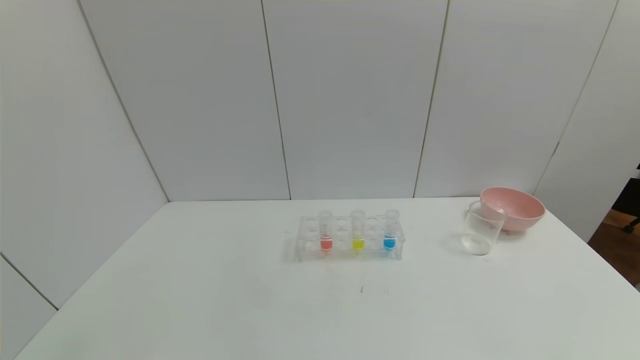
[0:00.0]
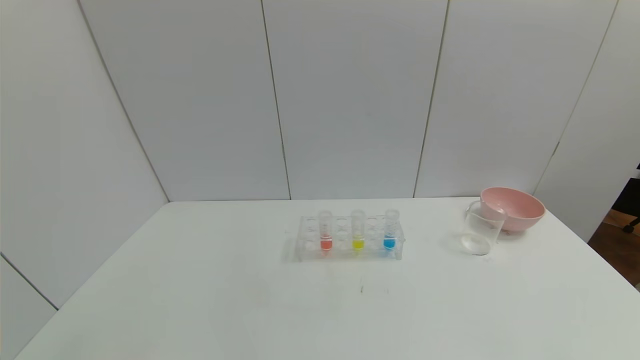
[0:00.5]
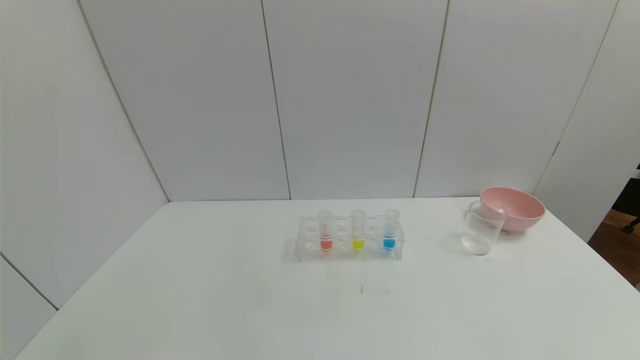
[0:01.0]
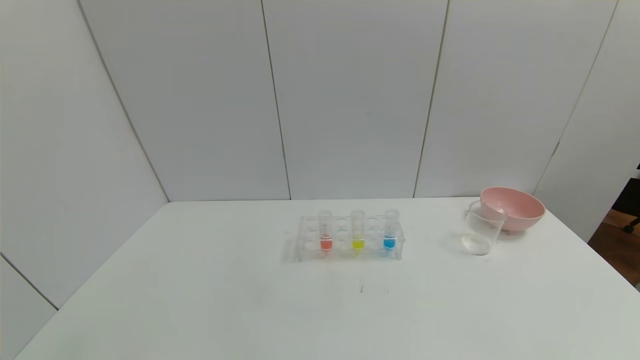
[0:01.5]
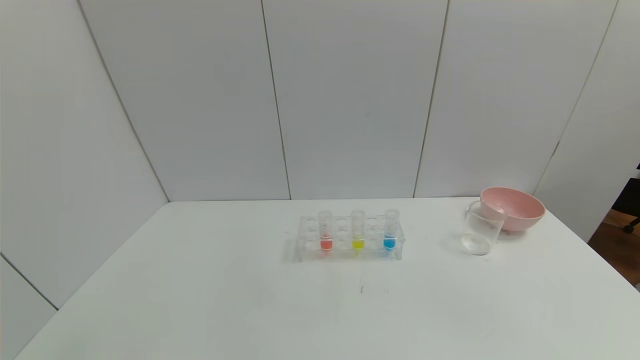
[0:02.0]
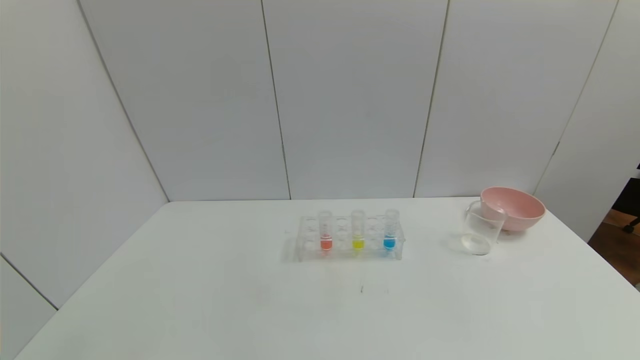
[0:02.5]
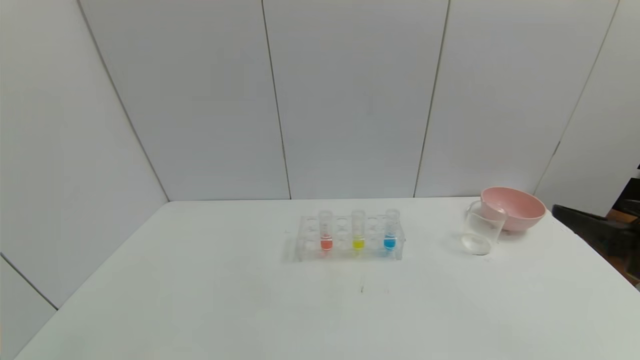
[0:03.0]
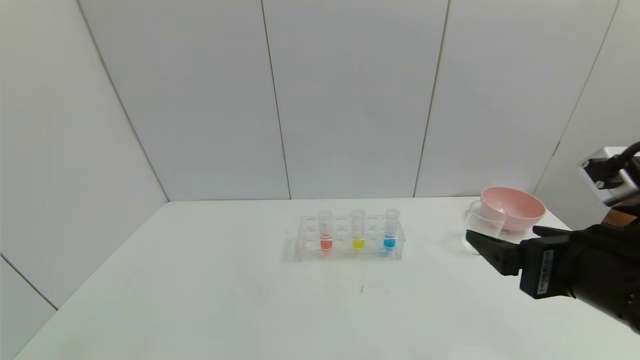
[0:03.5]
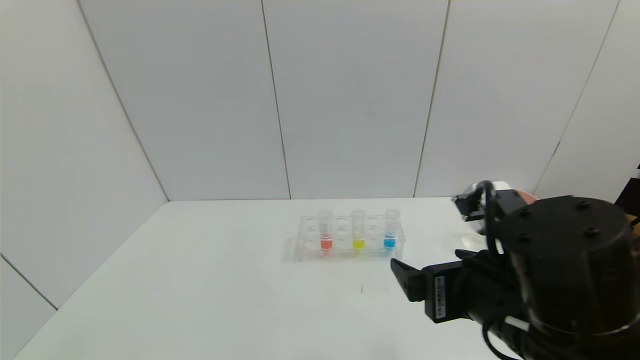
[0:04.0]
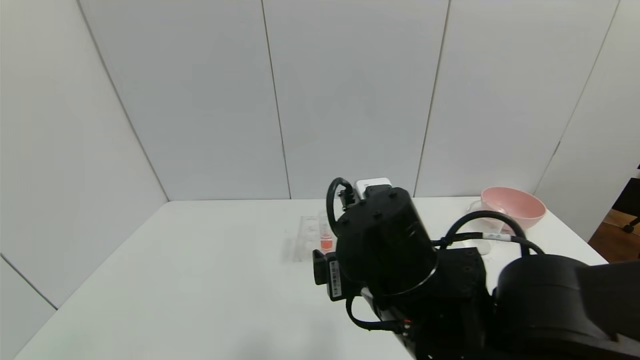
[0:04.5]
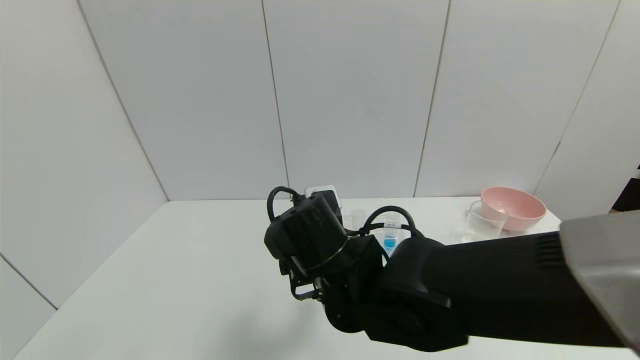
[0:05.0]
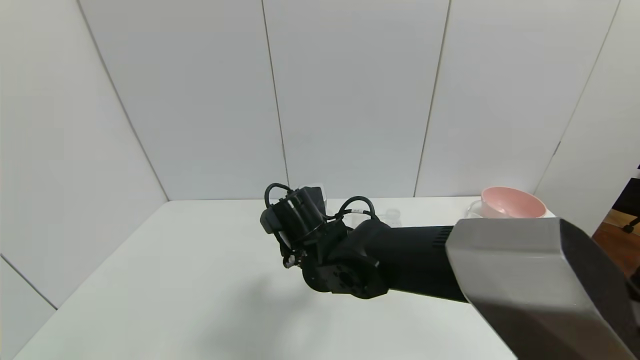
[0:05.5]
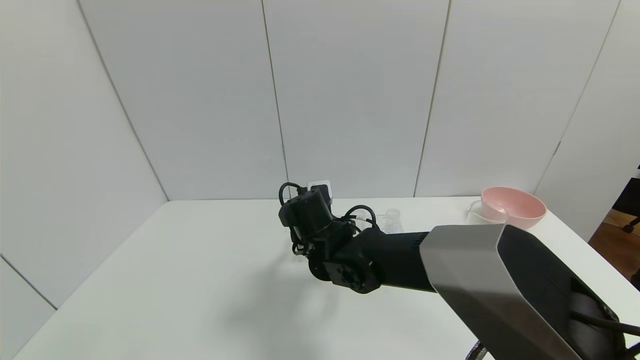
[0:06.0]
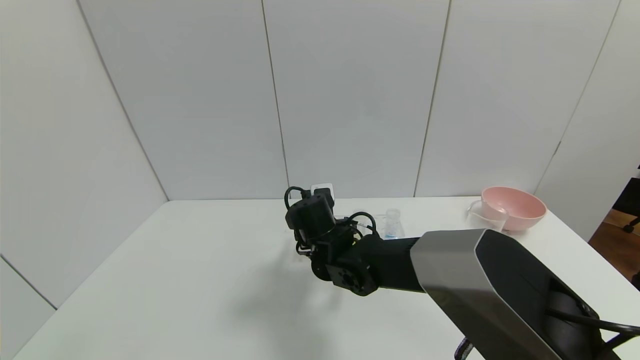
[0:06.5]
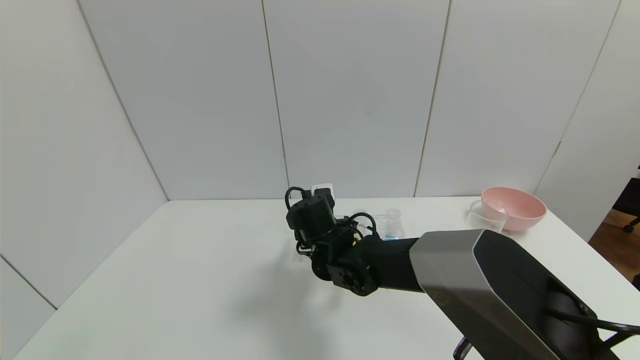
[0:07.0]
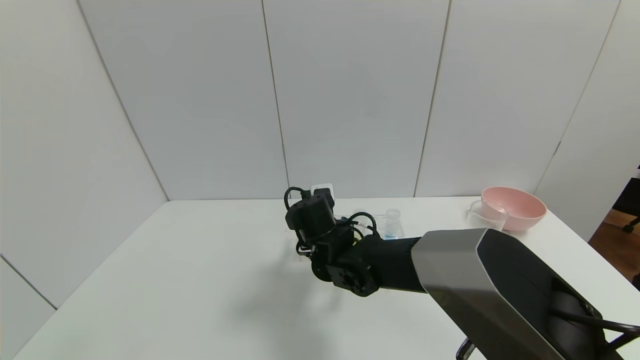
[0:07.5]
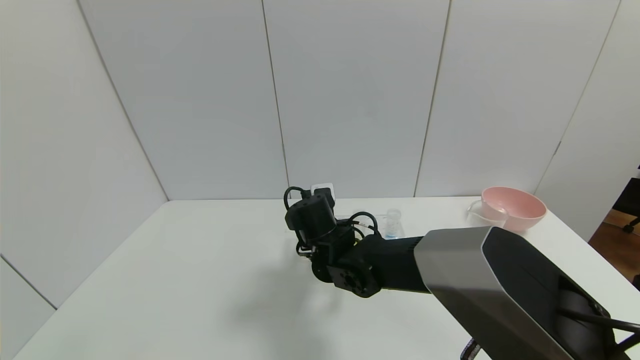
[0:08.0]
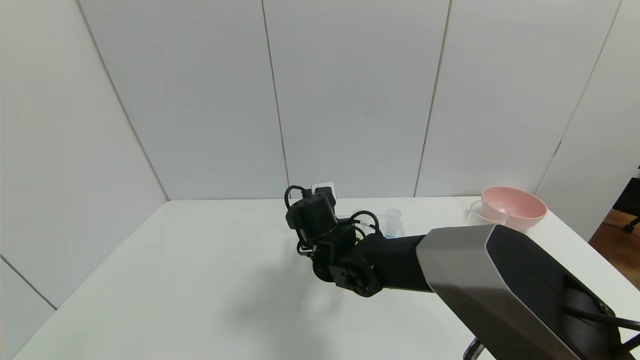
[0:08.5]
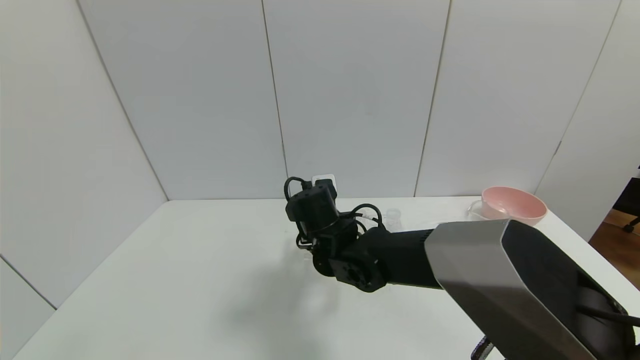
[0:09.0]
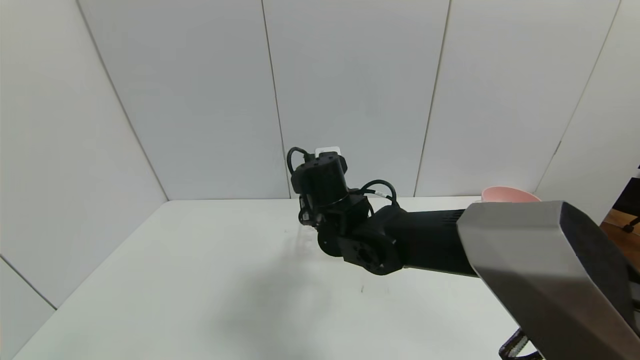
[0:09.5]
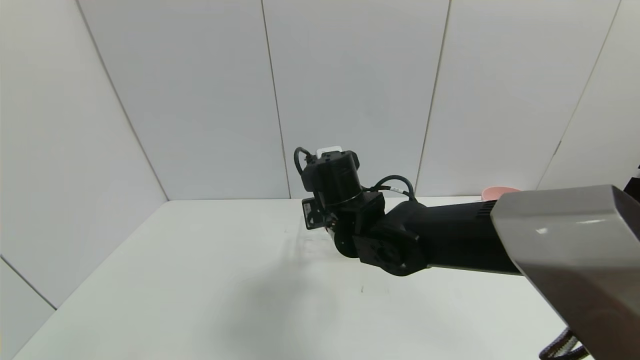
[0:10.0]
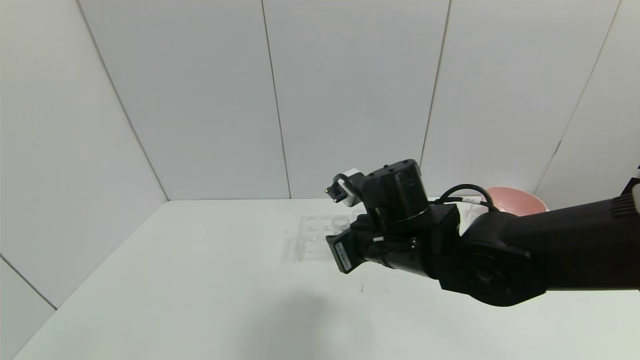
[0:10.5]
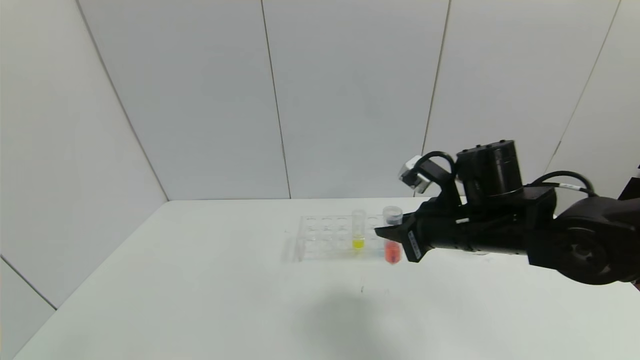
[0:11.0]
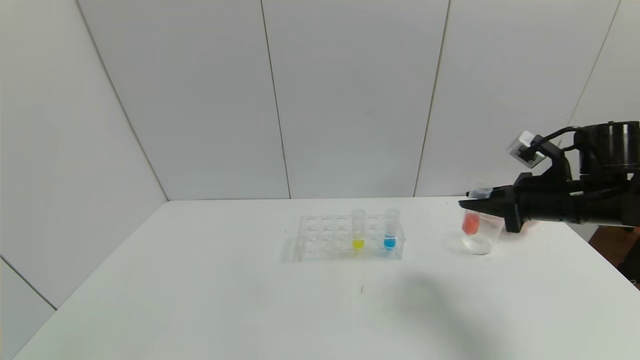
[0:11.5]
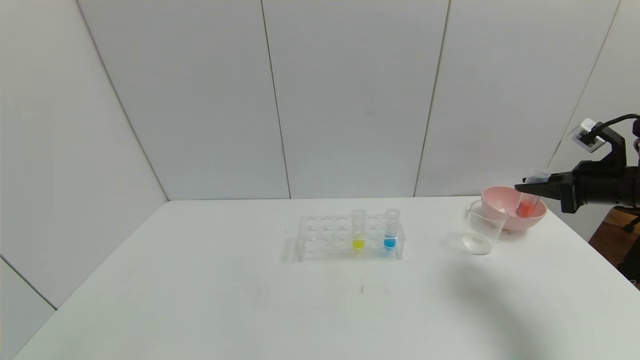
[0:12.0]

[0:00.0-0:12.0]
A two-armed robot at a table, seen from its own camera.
Task of the whole recording: pick up the test tube with yellow pigment and the test tube with red pigment by grippers and pour them into the beaker.
Step, 0:00.0 to 0:11.0: Pick up the test tube containing the red reagent with right gripper.
0:02.0 to 0:04.0: The right gripper travels to the left and forward by roughly 25 cm.
0:04.0 to 0:06.0: The right gripper travels forward, to the left and downward by some 30 cm.
0:06.0 to 0:08.0: The right gripper closes.
0:08.0 to 0:10.0: The right gripper is displaced upward by approximately 10 cm.
0:10.0 to 0:12.0: The right gripper heads to the right, covering about 40 cm.

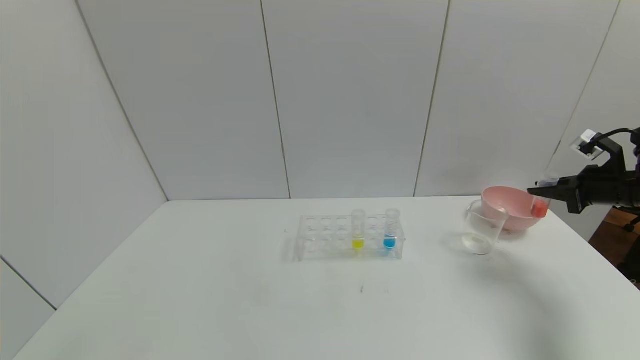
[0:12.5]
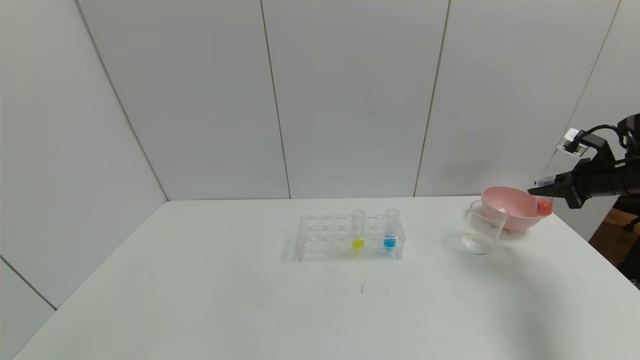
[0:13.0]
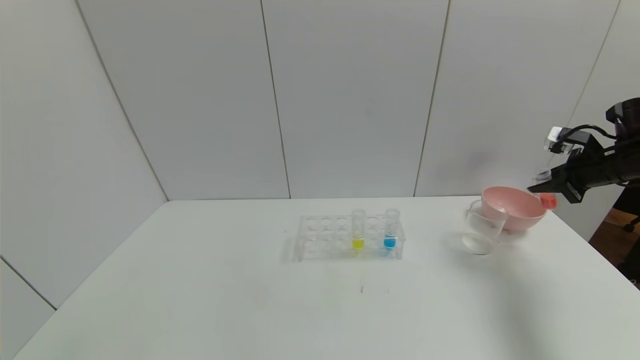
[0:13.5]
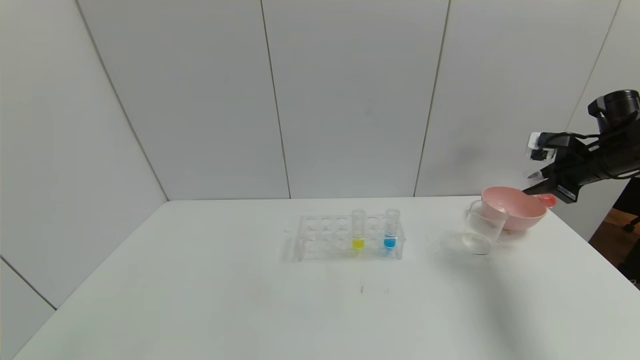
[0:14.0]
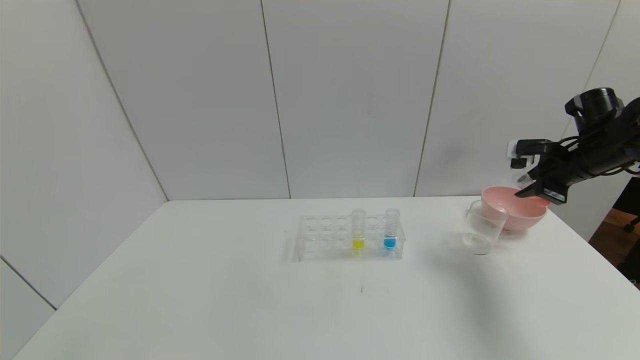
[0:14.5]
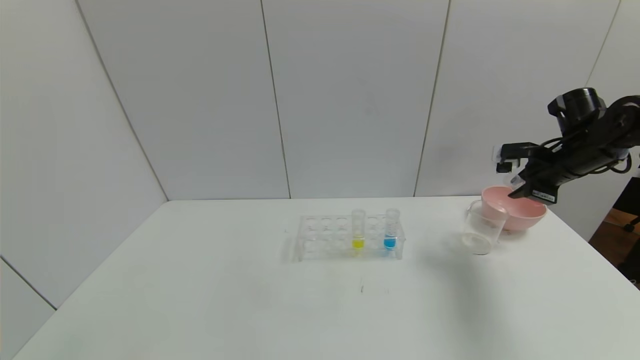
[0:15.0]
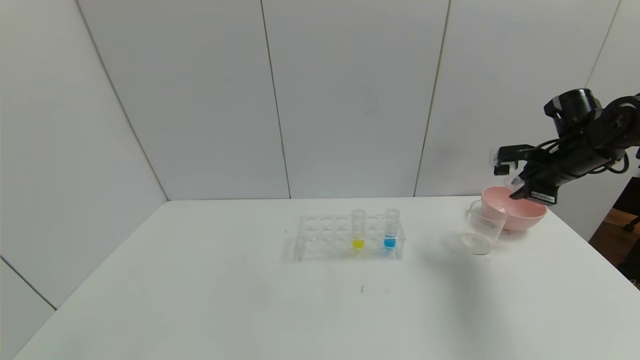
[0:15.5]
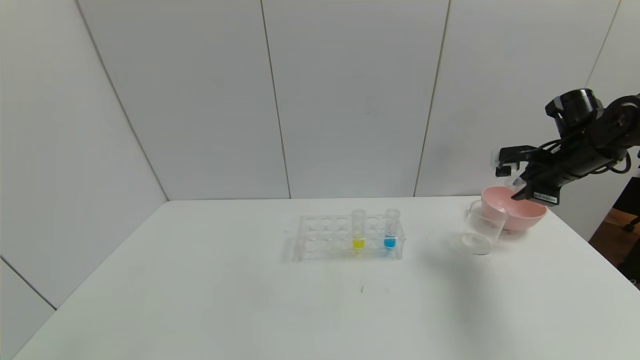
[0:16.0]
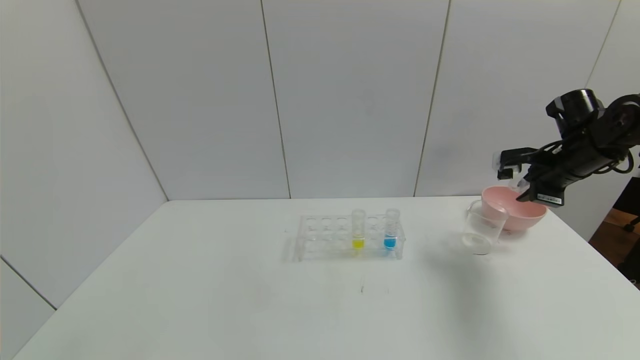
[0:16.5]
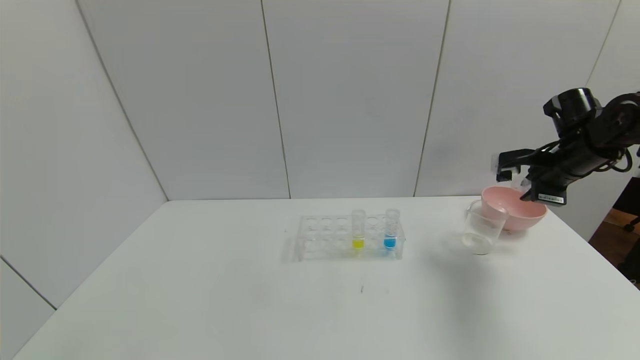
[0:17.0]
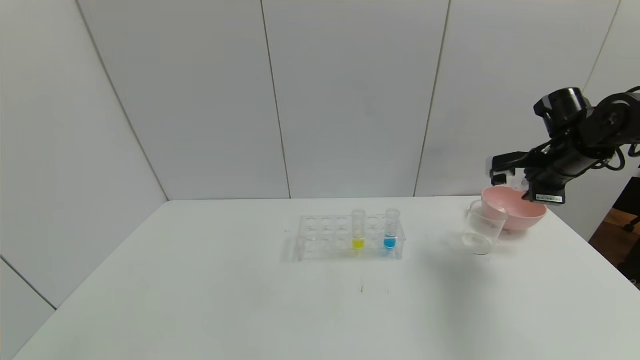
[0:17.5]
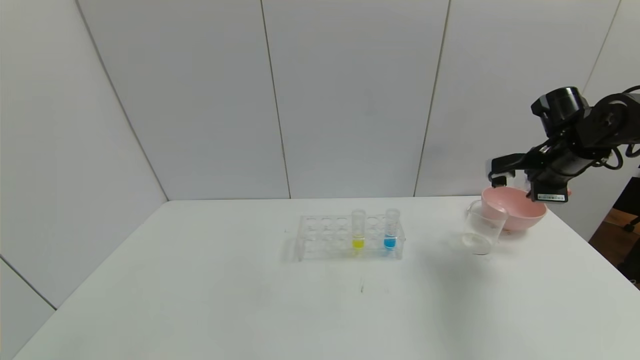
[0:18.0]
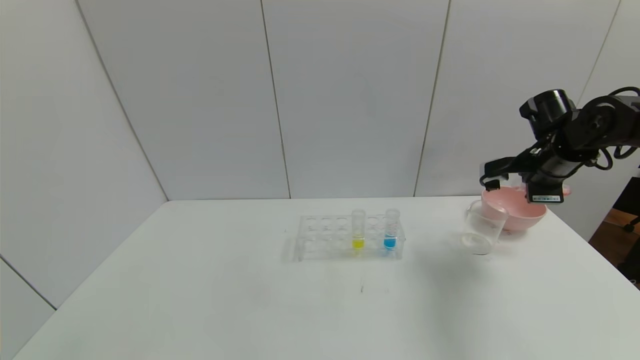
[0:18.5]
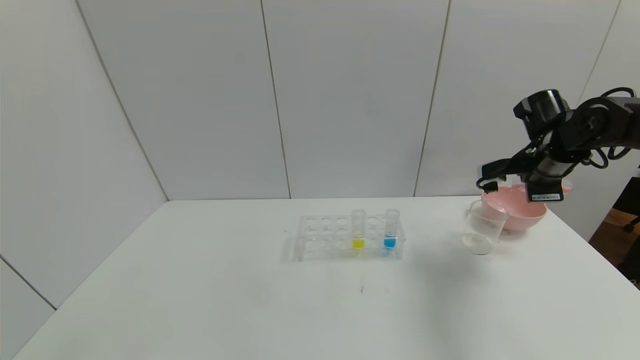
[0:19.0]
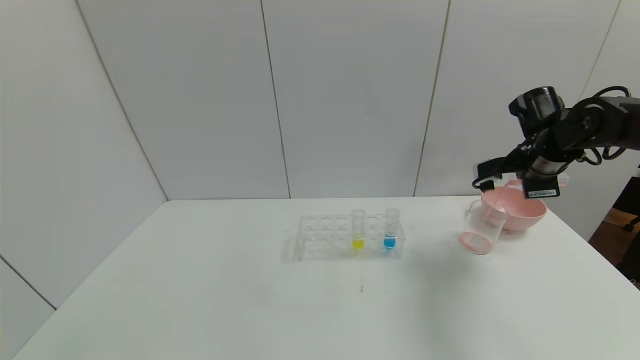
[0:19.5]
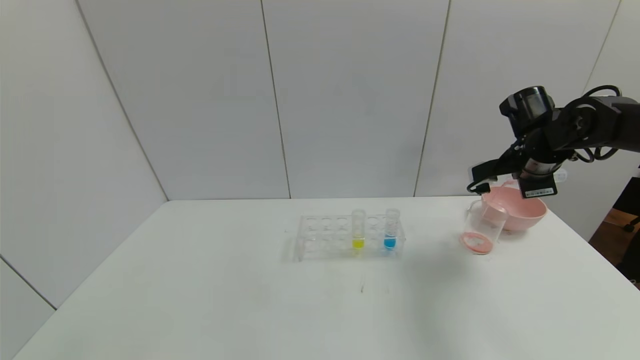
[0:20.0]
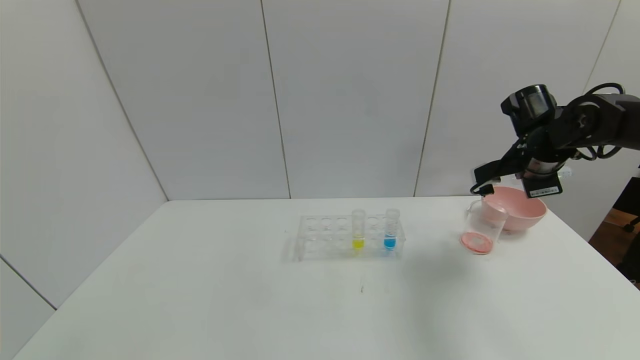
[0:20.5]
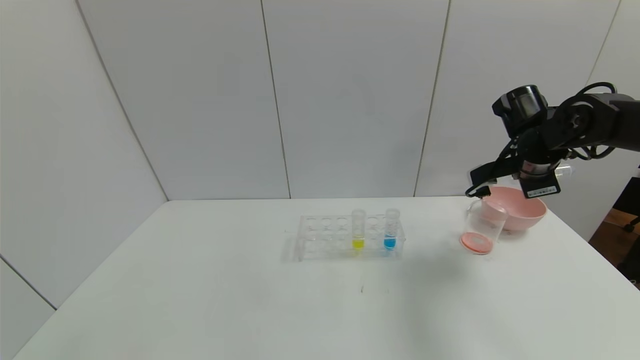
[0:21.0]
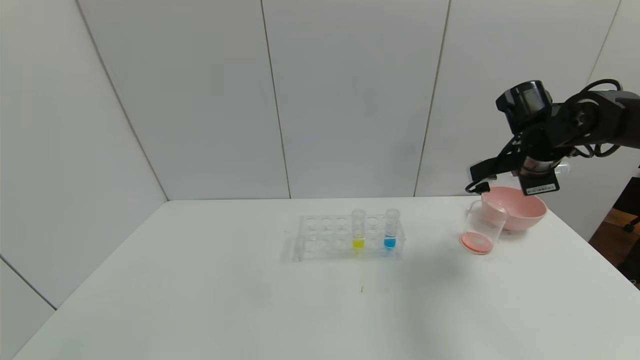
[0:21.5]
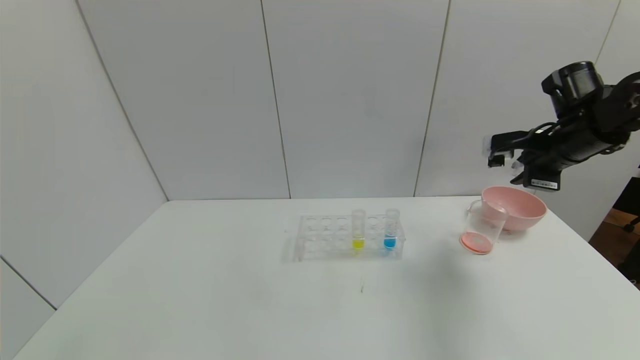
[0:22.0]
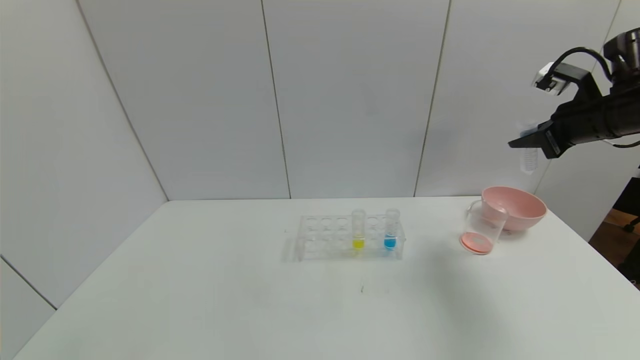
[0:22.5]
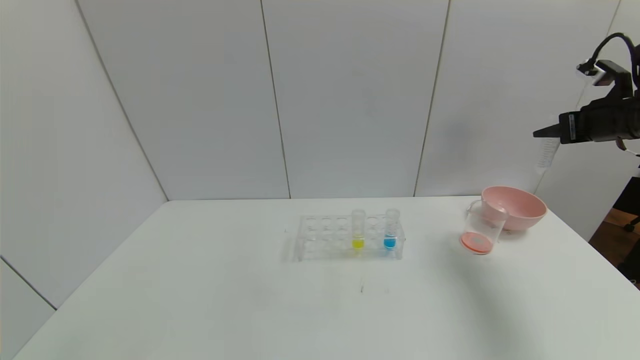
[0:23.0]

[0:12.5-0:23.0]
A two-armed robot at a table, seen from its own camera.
Task of the whole recording: pick up the test tube with yellow pigment and the test tube with red pigment by grippers and pour them into the beaker.
0:12.5 to 0:14.5: The right gripper heads to the left, covering some 10 cm.
0:14.5 to 0:16.5: The grippers make only small movements.
0:19.0 to 0:21.0: The grippers make only small movements.
0:21.0 to 0:23.0: The right gripper shifts about 15 cm to the right and upward.
